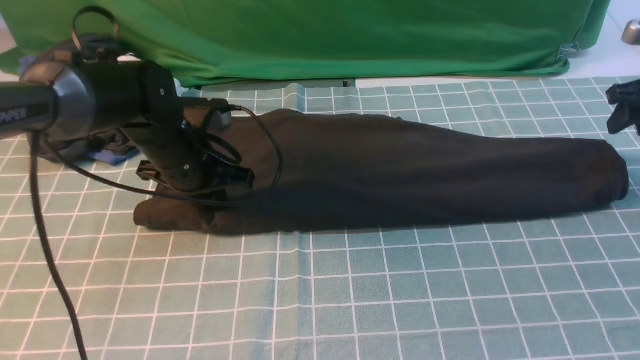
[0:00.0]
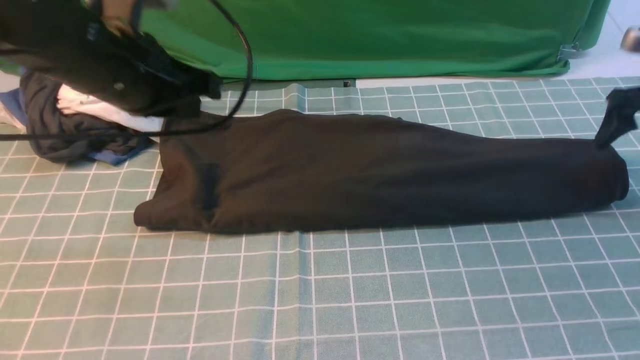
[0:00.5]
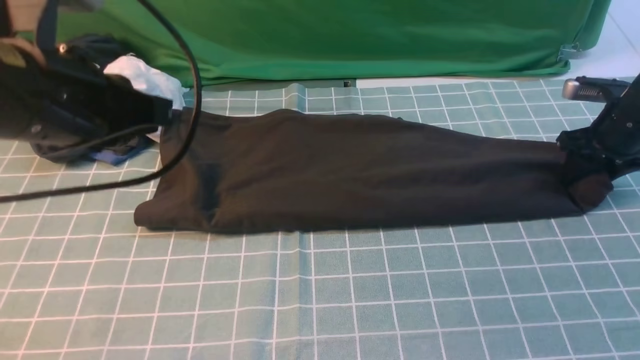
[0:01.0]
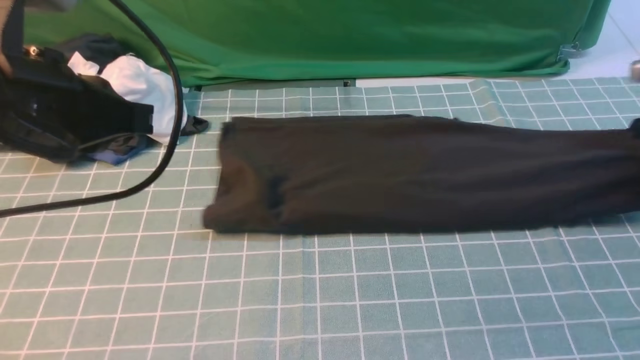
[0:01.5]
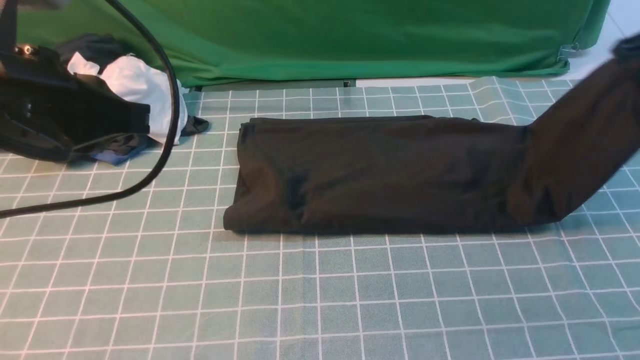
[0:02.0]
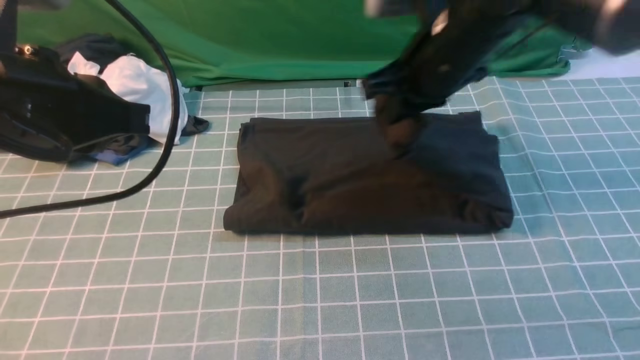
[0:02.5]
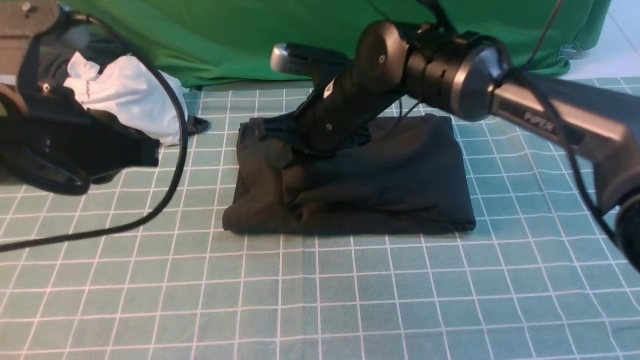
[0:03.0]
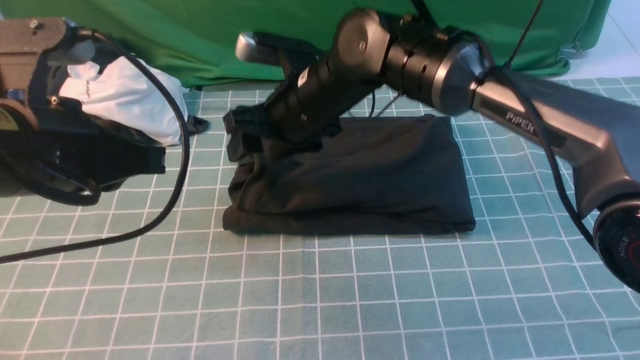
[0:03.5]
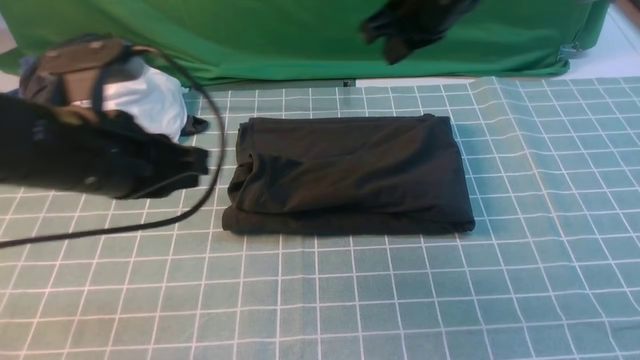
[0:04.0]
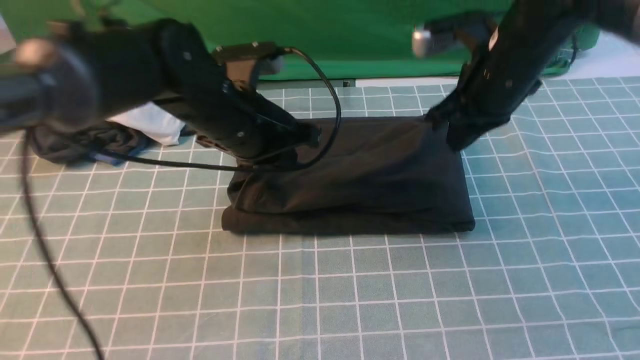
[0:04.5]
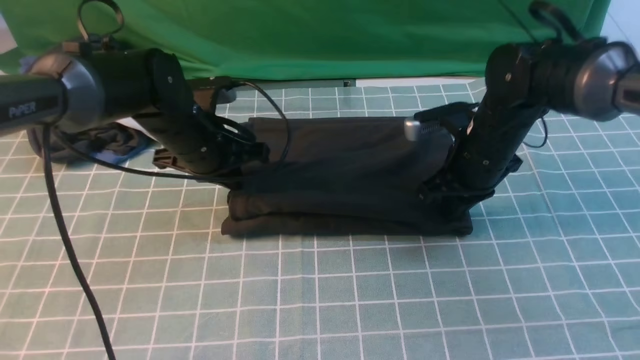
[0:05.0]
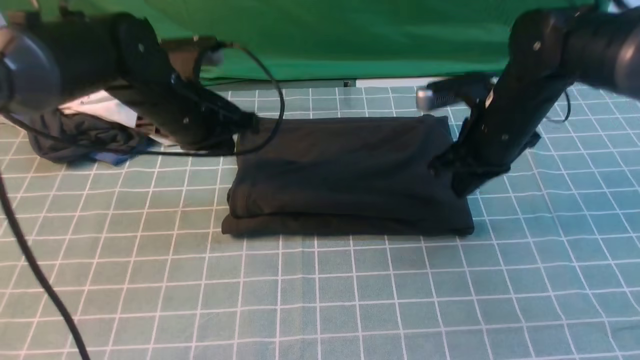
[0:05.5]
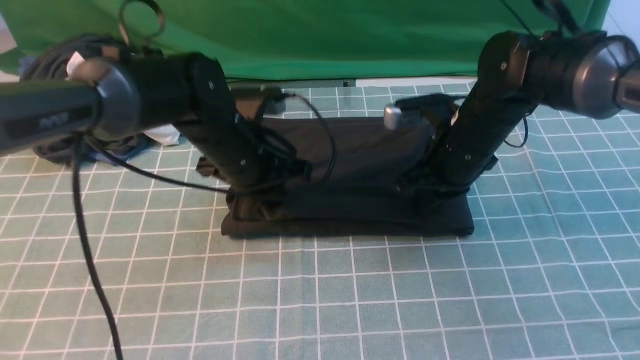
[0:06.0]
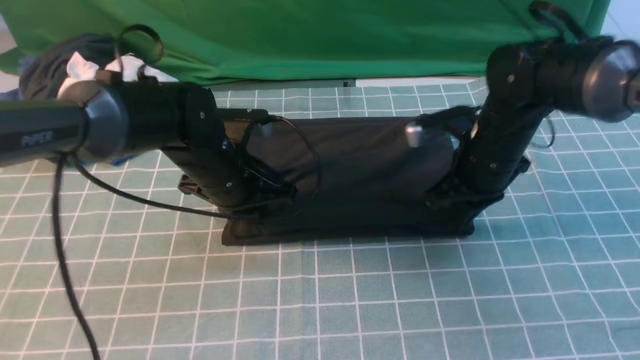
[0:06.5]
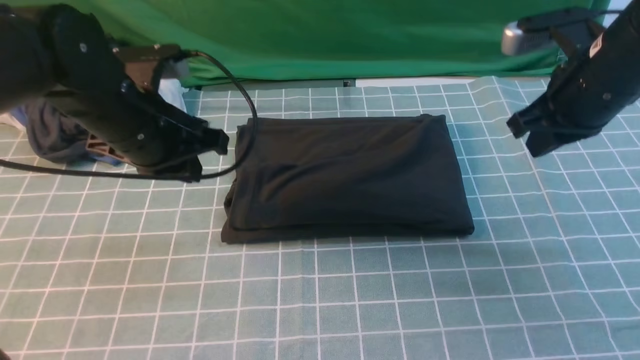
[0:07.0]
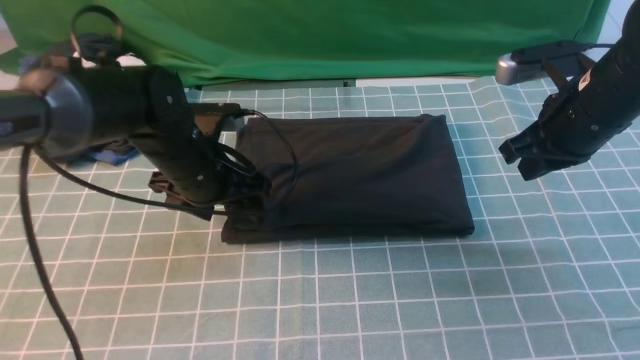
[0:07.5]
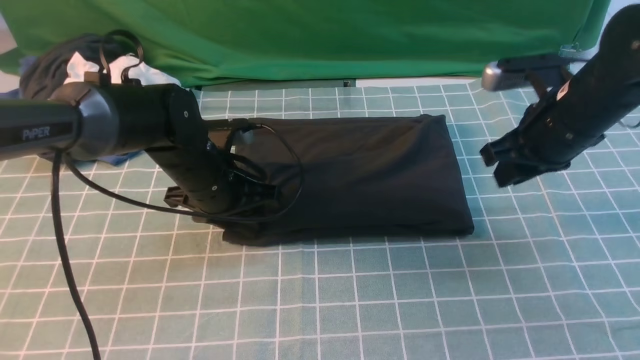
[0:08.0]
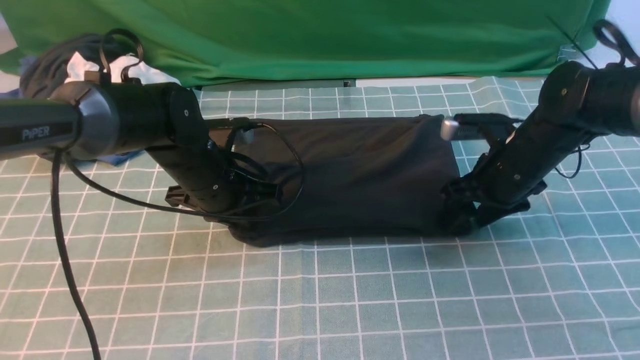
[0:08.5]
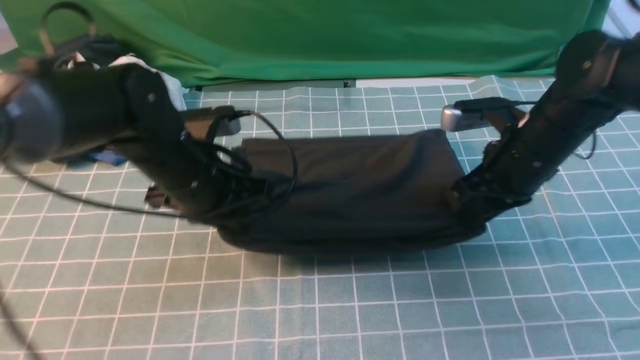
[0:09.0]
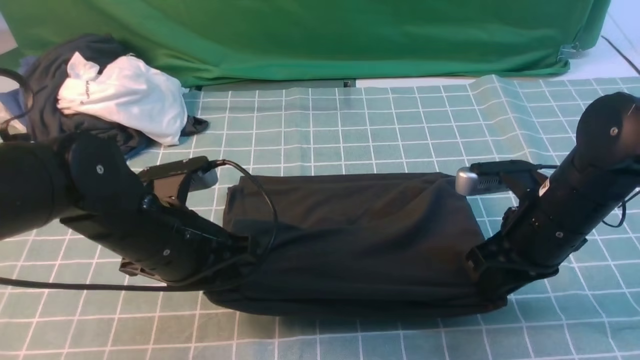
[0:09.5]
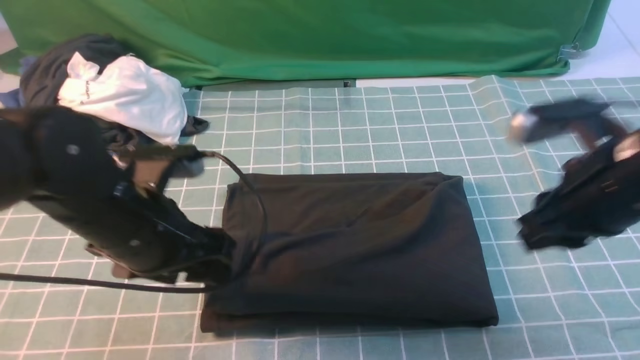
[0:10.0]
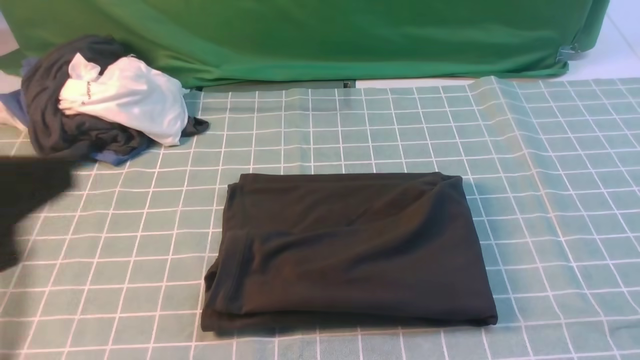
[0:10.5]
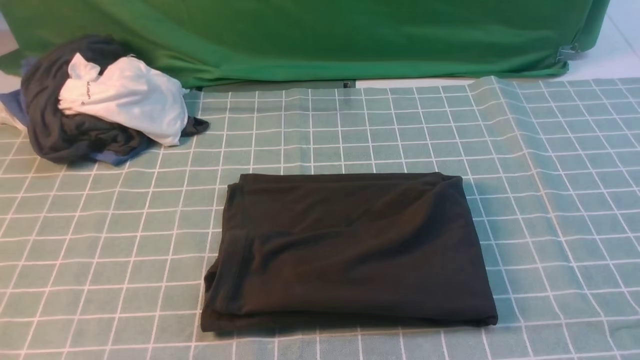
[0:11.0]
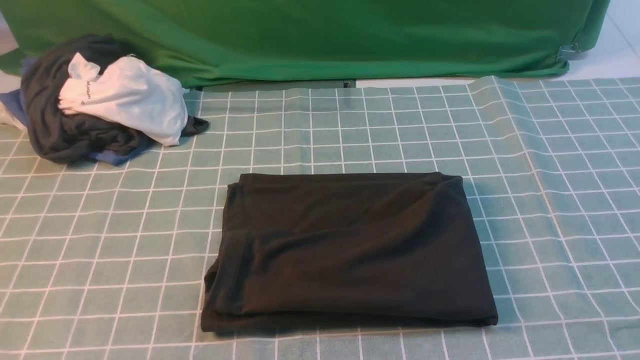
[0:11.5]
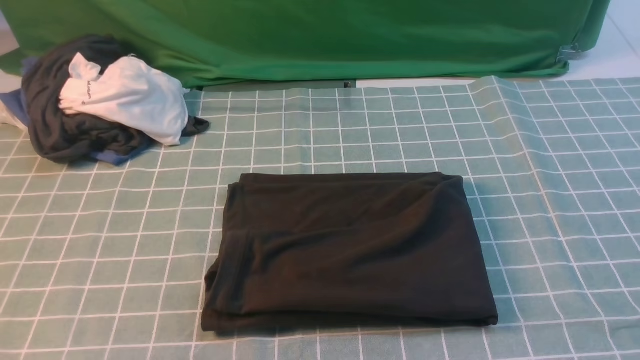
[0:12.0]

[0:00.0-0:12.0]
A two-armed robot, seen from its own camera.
Step, 0:01.5 to 0:04.0: use the right arm to drag the right edge of the fabric to the left and folds it over the left edge.
0:00.0 to 0:02.0: The left gripper shifts roughly 25 cm upward and backward, while the right gripper is displaced to the left and upward by some 15 cm, and closes its fingers.
0:02.0 to 0:04.0: The left gripper moves downward, about 5 cm; the right gripper moves to the left, about 20 cm, and opens, then closes again.
0:04.0 to 0:06.0: The left gripper is displaced forward, downward and to the right by about 15 cm; the right gripper moves downward, approximately 15 cm.
0:06.0 to 0:08.0: The left gripper moves some 5 cm upward and comes back, and opens, while the right gripper goes approximately 10 cm to the right, and opens its fingers.
0:08.0 to 0:10.0: The grippers both shift backward and upward by roughly 15 cm. The left gripper closes, then reopens.
0:10.0 to 0:12.0: The right gripper goes about 25 cm backward and to the right, while the left gripper moves backward and upward, approximately 20 cm, and closes.

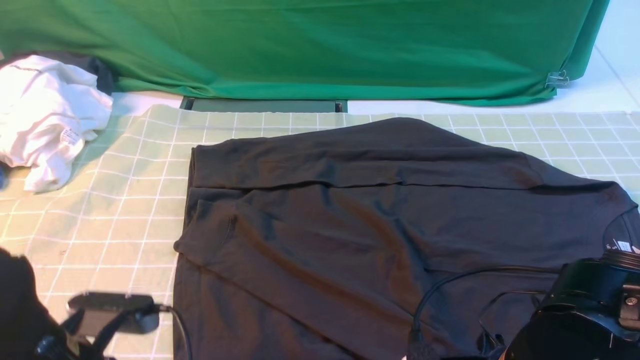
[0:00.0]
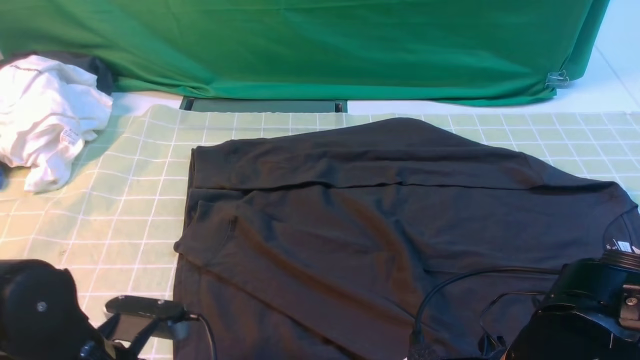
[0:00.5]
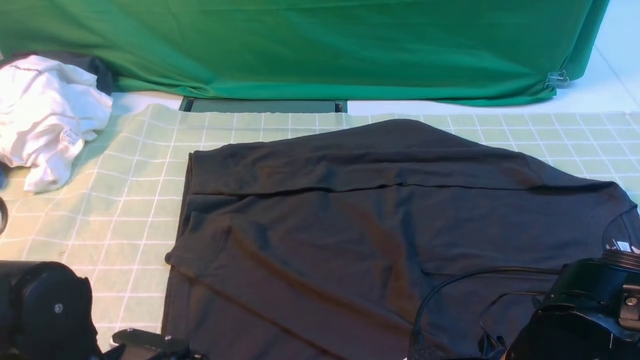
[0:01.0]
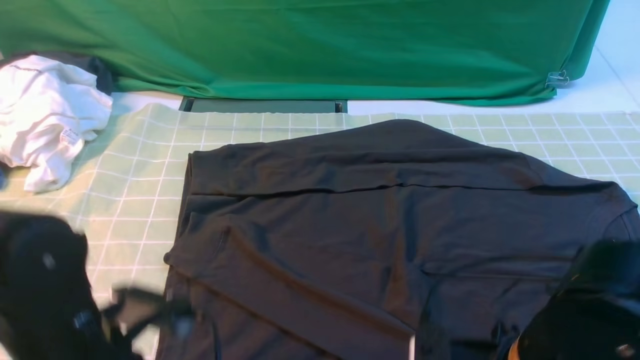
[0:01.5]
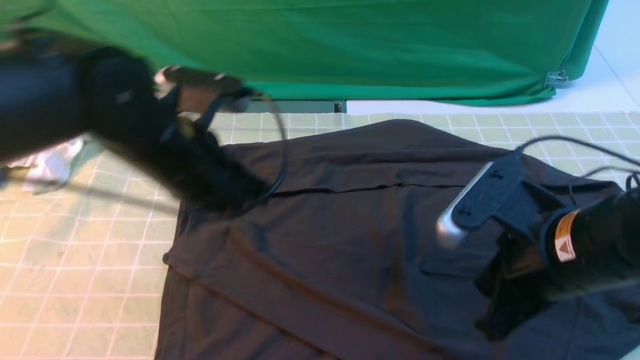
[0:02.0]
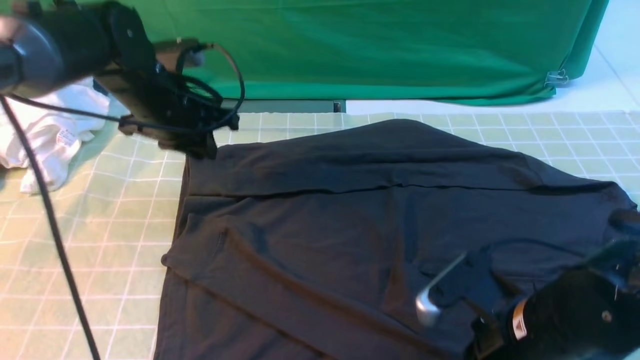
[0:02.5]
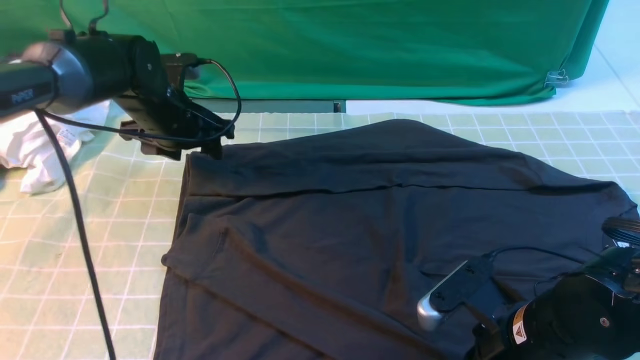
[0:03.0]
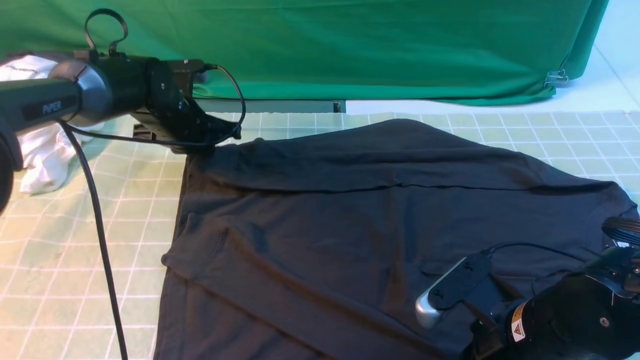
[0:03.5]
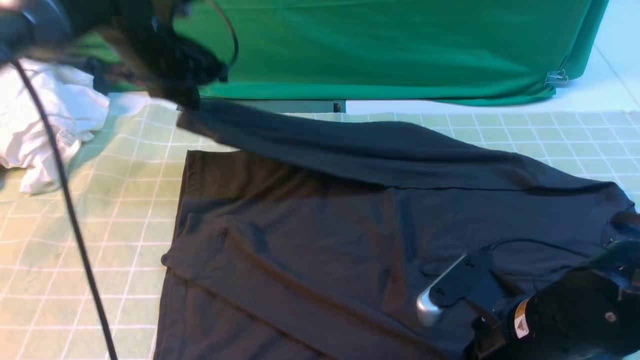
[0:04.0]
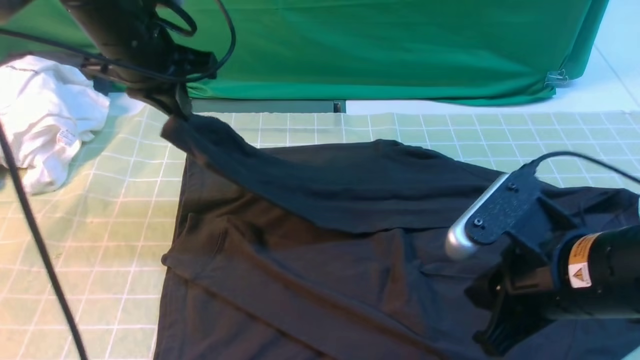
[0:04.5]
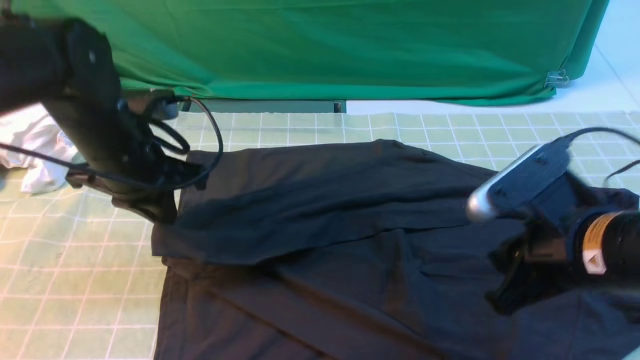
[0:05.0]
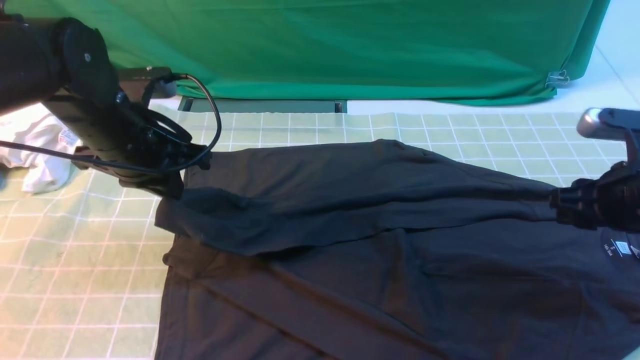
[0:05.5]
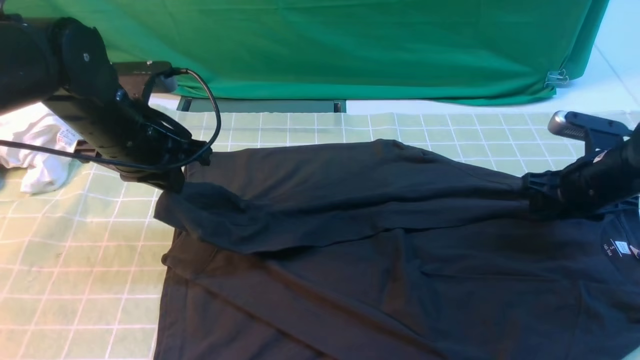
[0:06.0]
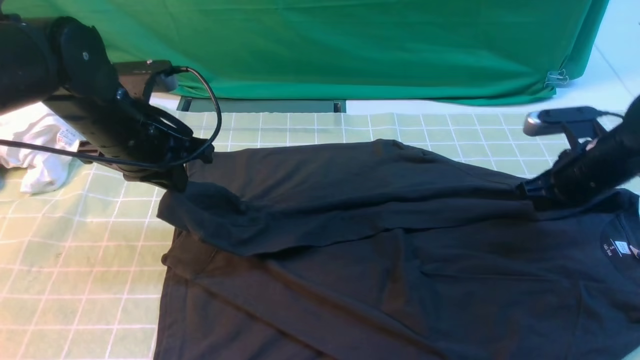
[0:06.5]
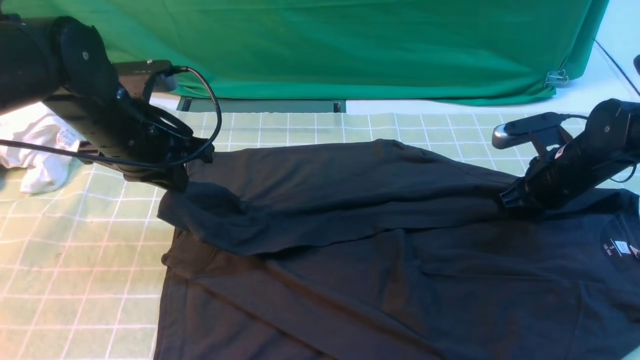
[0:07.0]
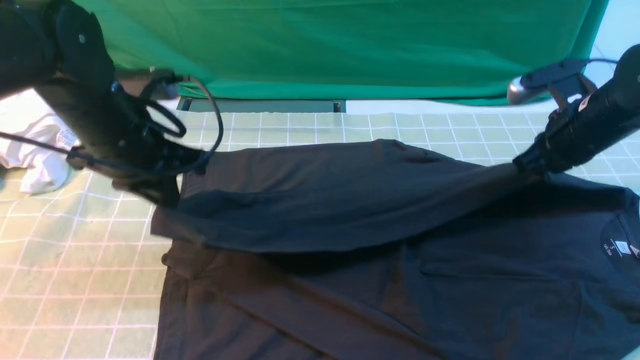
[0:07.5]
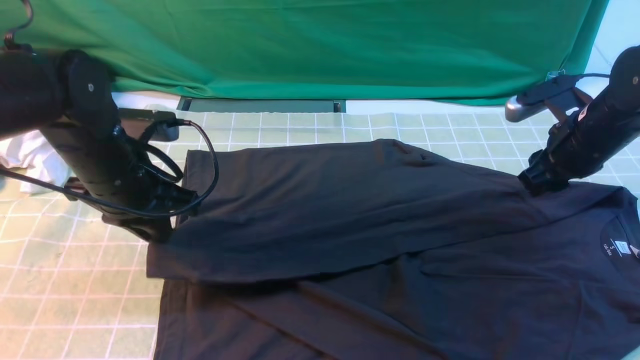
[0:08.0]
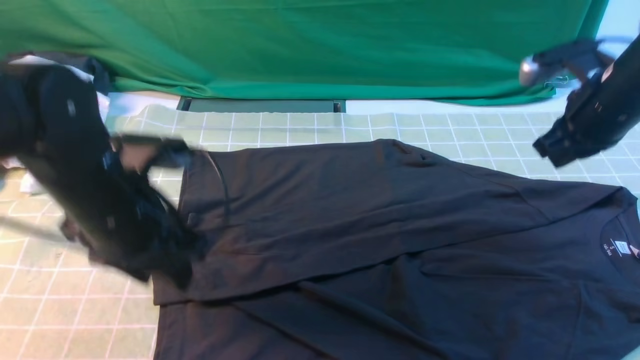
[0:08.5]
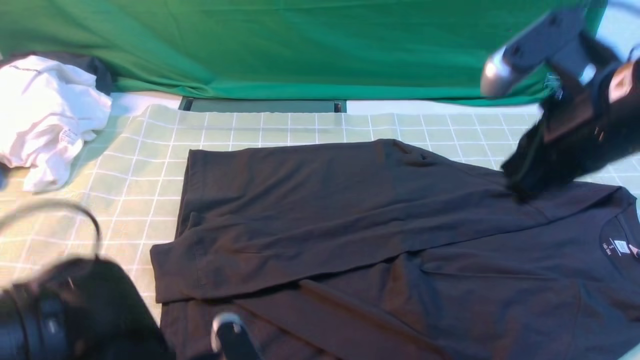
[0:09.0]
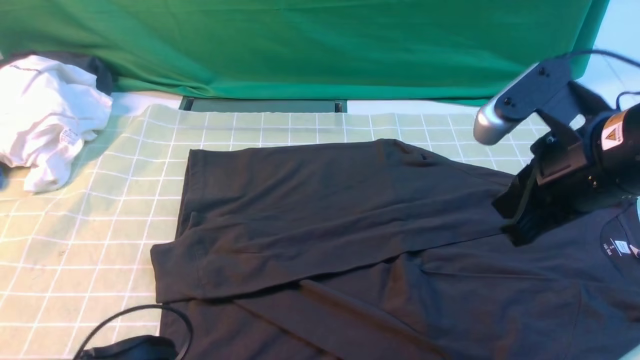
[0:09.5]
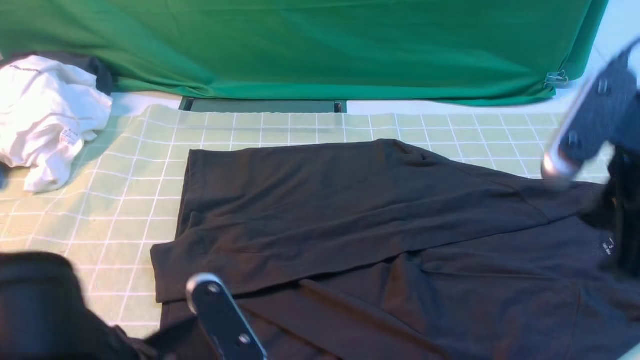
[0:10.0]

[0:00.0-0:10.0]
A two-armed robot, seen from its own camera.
Step, 0:00.0 to 0:03.0: use the left arm to clamp the cuff farthest from it.
Step, 0:03.5 to 0:08.0: use the left arm to drag and drop the cuff onto the cuff closest to the left arm.
0:00.0 to 0:02.0: The right gripper is displaced forward and upward by approximately 10 cm, and opens, then closes once more. Meanwhile the left gripper is displaced forward and upward by roughly 20 cm, and closes.
0:02.0 to 0:04.0: The right gripper goes roughly 5 cm downward. The left gripper moves forward and to the left, some 15 cm, and opens and closes again.
0:04.0 to 0:06.0: The right gripper moves forward and to the right, about 25 cm, and opens. The left gripper shifts roughly 10 cm backward.
0:06.0 to 0:08.0: The right gripper moves upward, approximately 5 cm, and closes, then reopens.
0:08.0 to 0:10.0: The right gripper is displaced backward and upward by roughly 20 cm, and closes its fingers, while the left gripper shifts approximately 25 cm backward and to the right, and opens and closes again.
